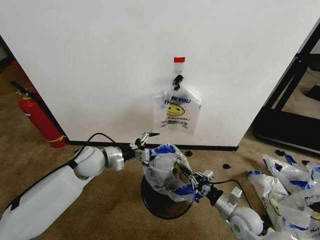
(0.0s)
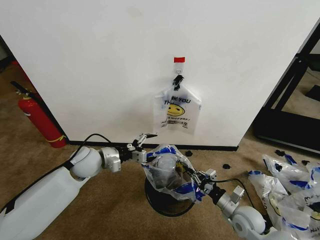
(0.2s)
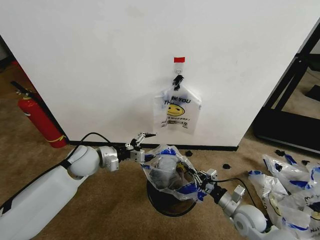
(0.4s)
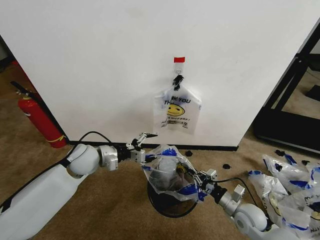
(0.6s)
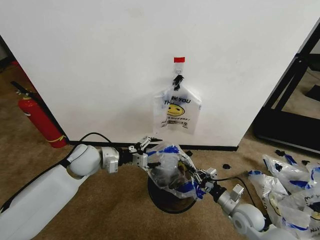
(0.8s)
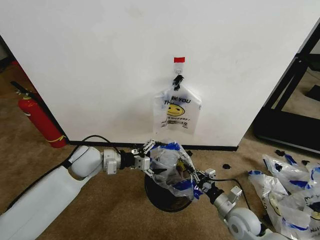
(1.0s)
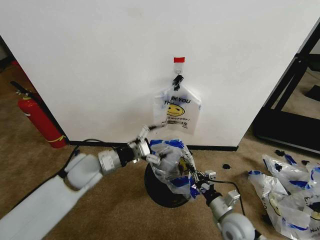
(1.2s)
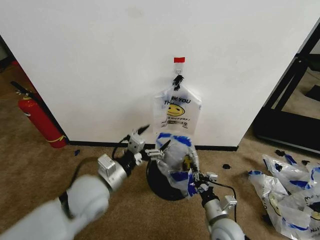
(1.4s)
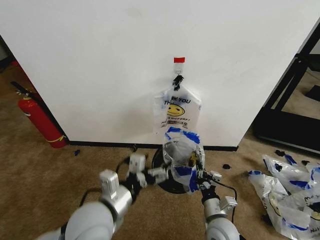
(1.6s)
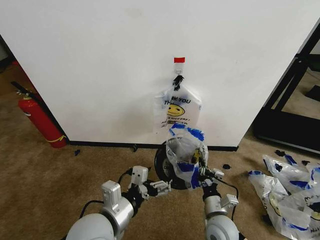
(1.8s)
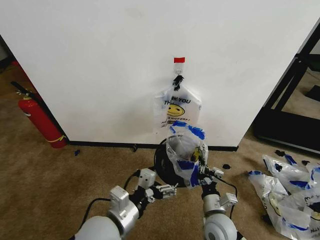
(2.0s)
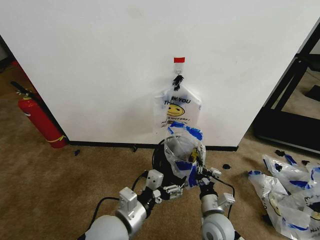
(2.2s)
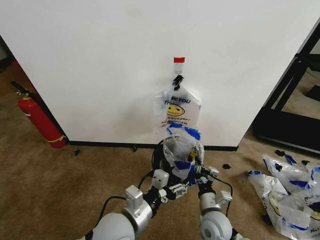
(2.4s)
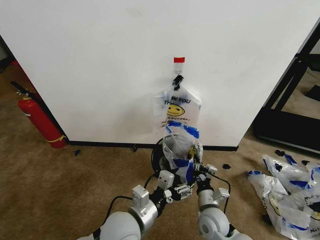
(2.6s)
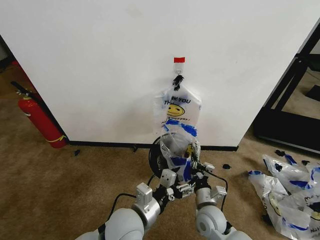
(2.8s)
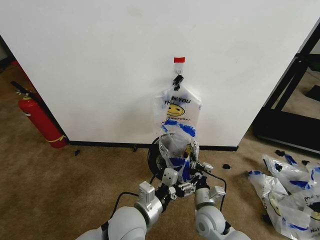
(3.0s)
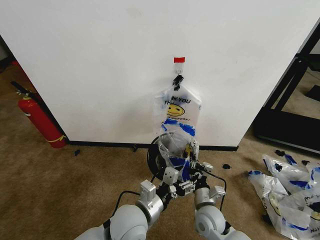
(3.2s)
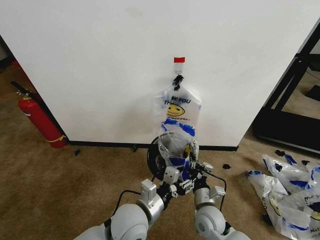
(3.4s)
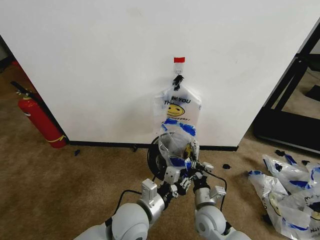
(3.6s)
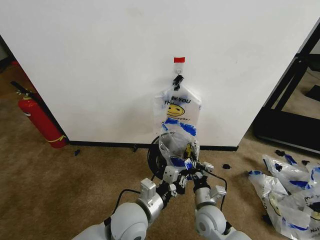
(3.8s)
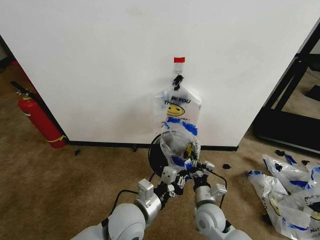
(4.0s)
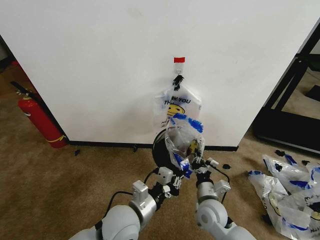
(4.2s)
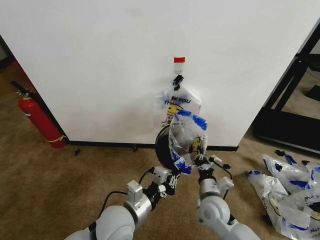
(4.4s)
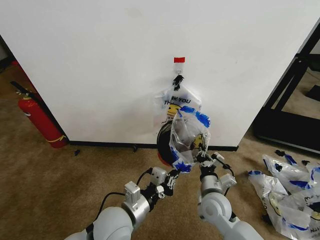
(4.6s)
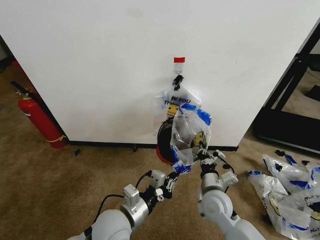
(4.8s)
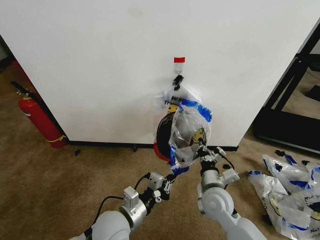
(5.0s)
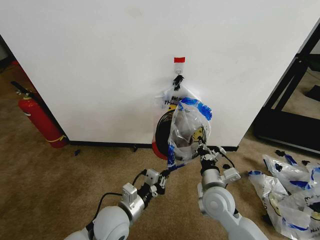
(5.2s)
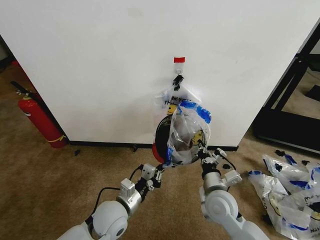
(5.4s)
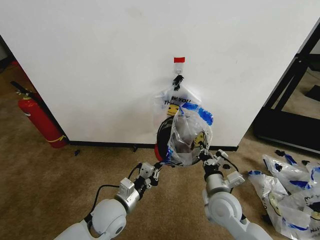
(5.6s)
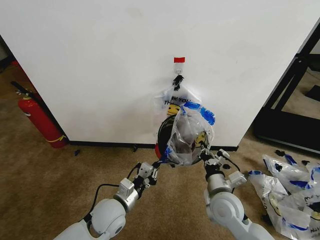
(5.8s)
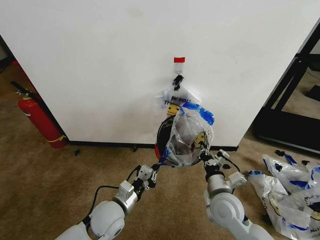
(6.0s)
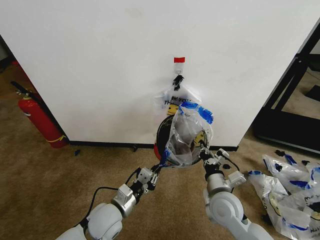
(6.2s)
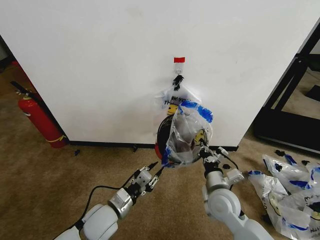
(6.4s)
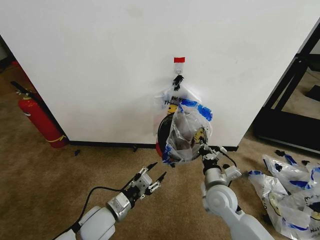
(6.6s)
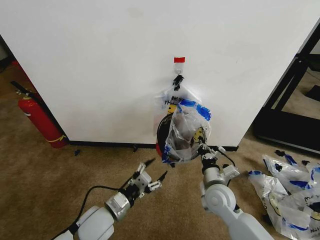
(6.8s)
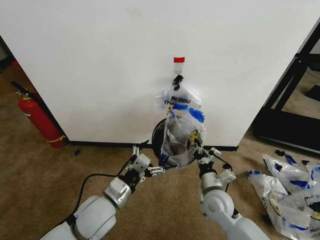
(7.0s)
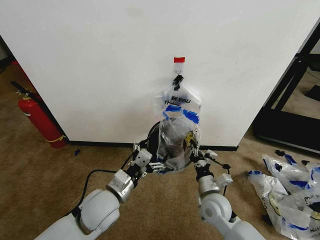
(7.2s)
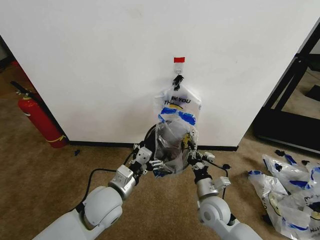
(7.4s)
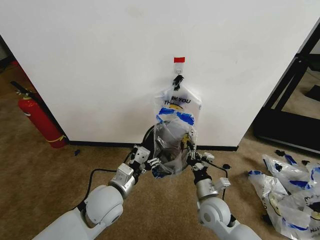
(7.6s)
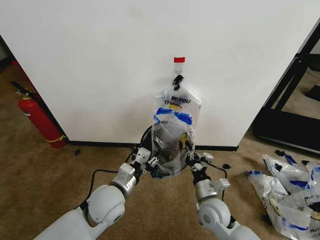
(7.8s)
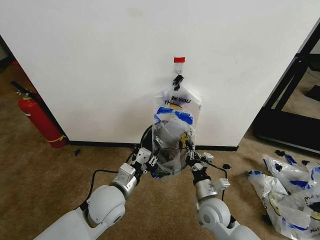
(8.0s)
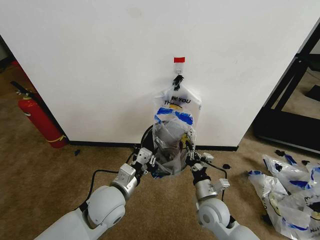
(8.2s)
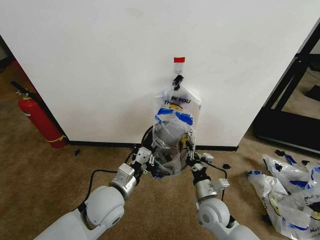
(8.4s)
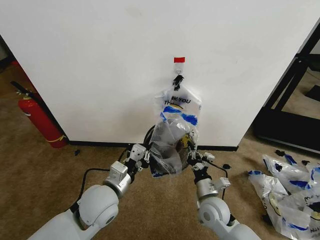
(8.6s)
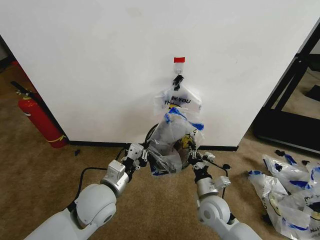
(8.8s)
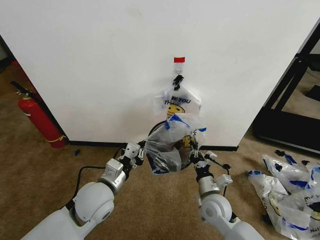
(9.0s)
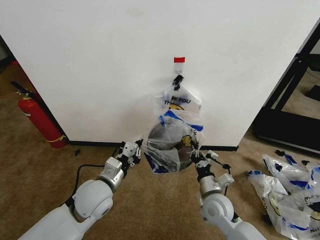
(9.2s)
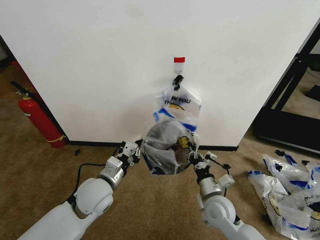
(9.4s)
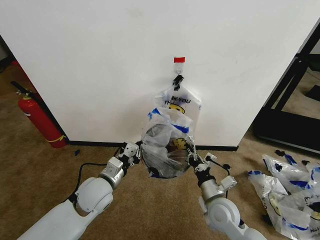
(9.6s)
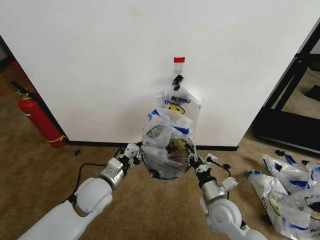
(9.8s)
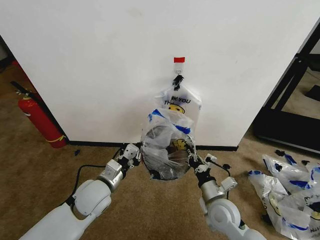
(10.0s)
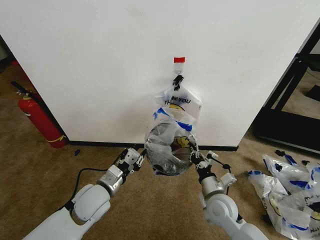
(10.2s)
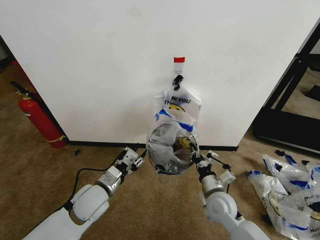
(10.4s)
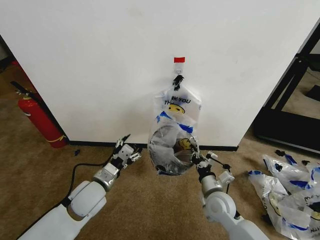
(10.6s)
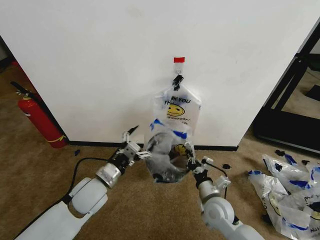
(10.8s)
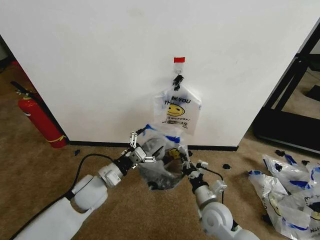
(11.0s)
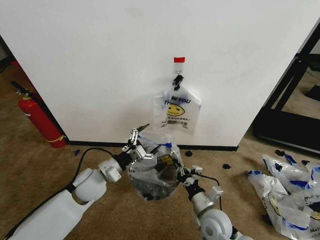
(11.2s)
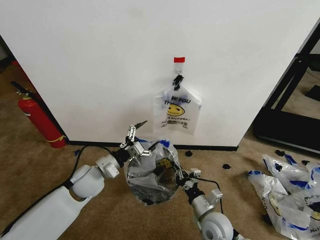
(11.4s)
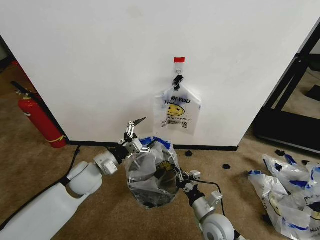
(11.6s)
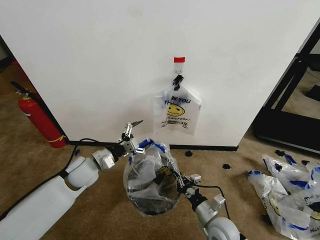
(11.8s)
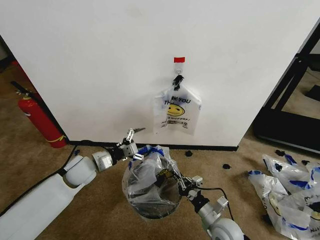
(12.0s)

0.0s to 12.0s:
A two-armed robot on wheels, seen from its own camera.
Task of the whole recording: Pick up the garbage bag from the wall and place it over the trash bin.
0.0s to 1.6s: The right gripper goes some 10 cm to the left; the left gripper heads backward and to the right, covering some 20 cm.
1.6s to 3.0s: The left gripper is displaced downward and to the right by roughly 10 cm, while the right gripper ends up about 5 cm from where it was.
3.0s to 4.4s: The left gripper closes its fingers.
4.4s to 6.0s: The right gripper shifts approximately 5 cm upward. Meanwhile the left gripper is displaced downward by roughly 5 cm.
6.0s to 7.6s: The right gripper moves downward, roughly 5 cm; the left gripper heads upward, covering some 5 cm, and opens up.
7.6s to 9.0s: The left gripper closes up.
9.0s to 10.4s: The left gripper changes place by some 5 cm, and opens its fingers.
10.4s to 12.0s: The left gripper shifts some 10 cm forward and to the left, and opens up; the right gripper heads backward and downward, covering approximately 10 cm.

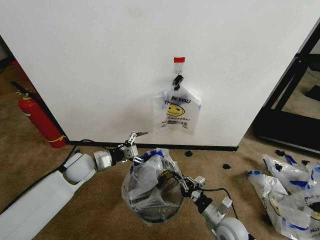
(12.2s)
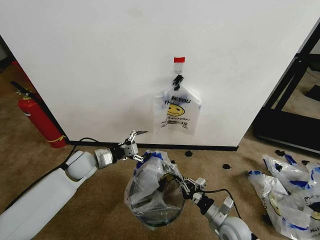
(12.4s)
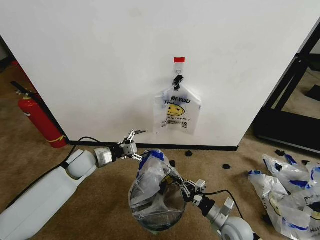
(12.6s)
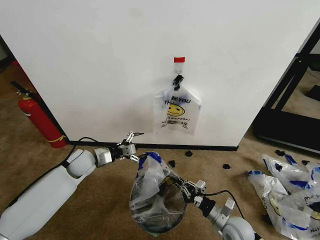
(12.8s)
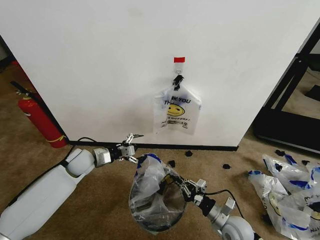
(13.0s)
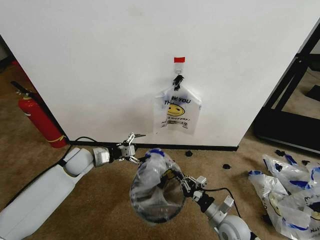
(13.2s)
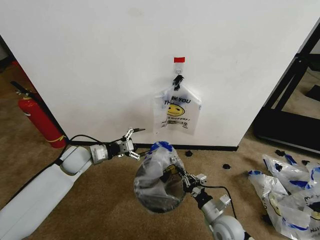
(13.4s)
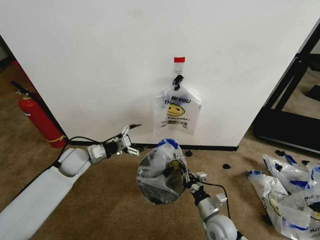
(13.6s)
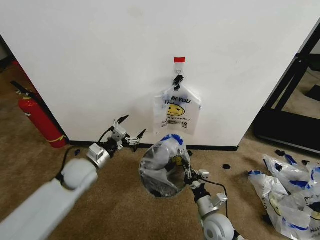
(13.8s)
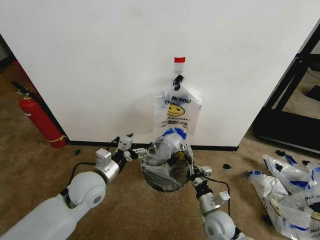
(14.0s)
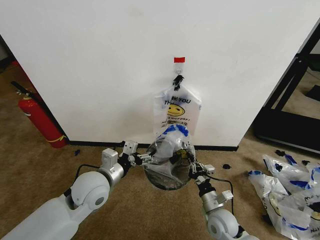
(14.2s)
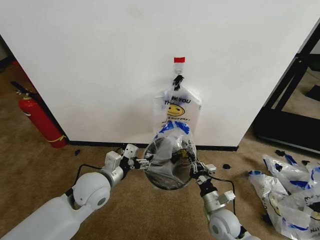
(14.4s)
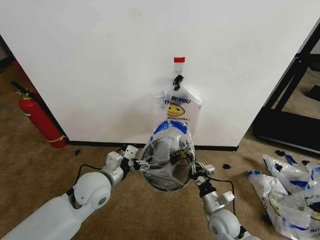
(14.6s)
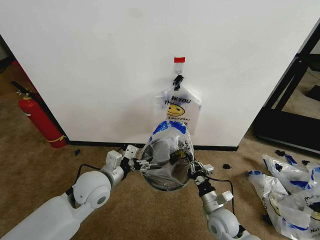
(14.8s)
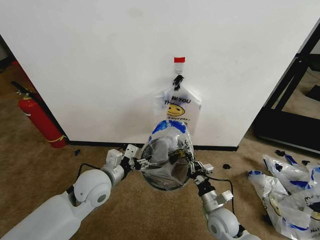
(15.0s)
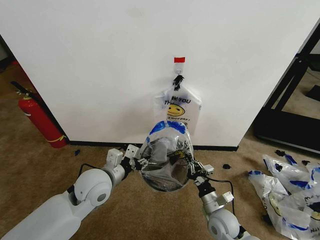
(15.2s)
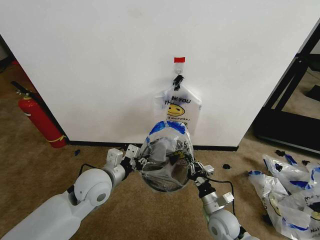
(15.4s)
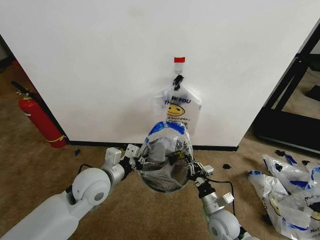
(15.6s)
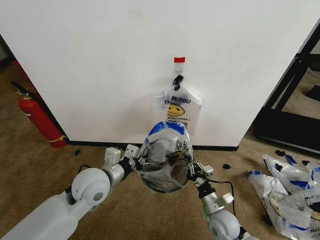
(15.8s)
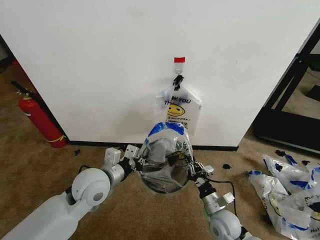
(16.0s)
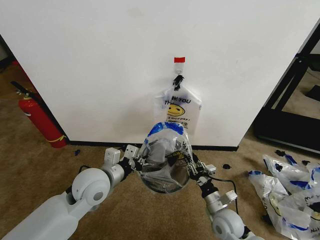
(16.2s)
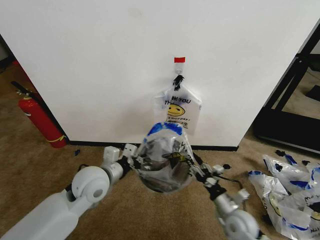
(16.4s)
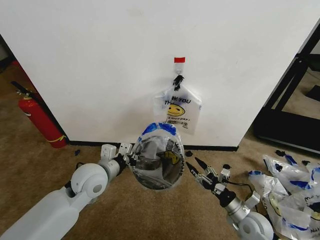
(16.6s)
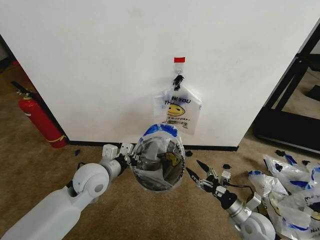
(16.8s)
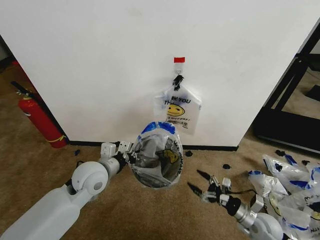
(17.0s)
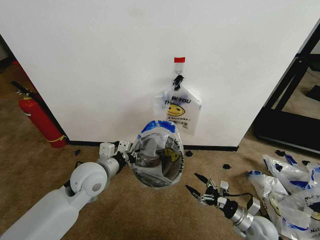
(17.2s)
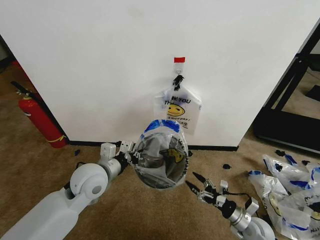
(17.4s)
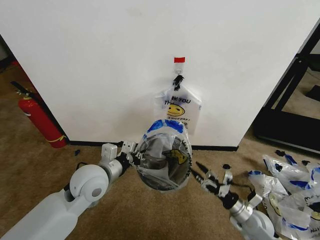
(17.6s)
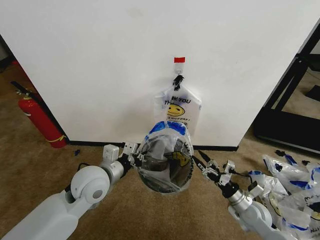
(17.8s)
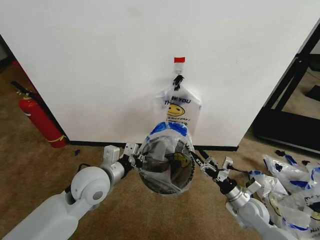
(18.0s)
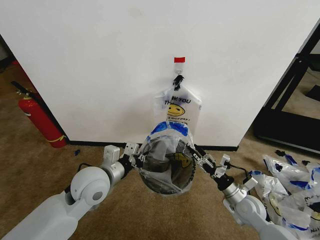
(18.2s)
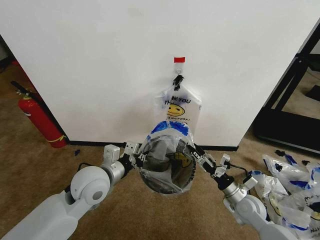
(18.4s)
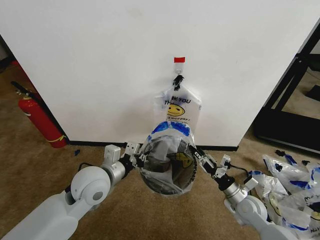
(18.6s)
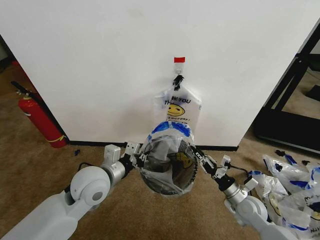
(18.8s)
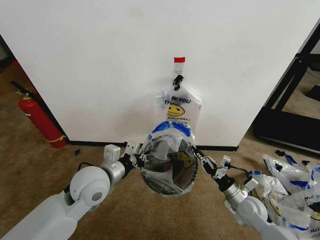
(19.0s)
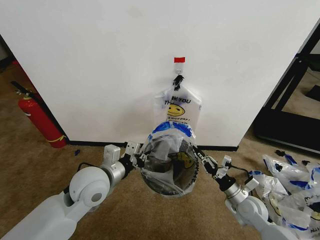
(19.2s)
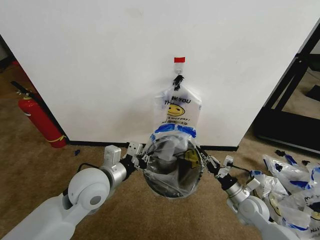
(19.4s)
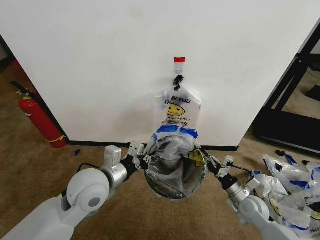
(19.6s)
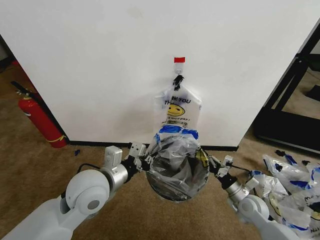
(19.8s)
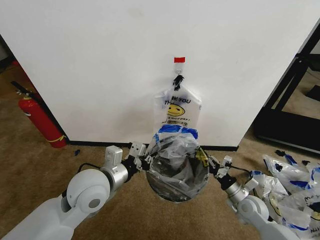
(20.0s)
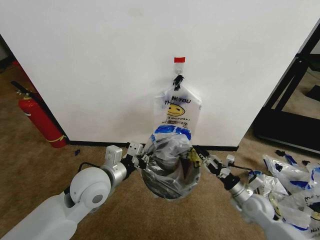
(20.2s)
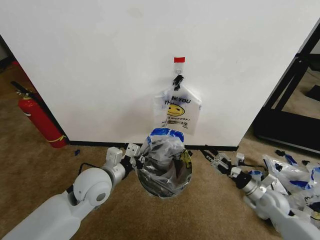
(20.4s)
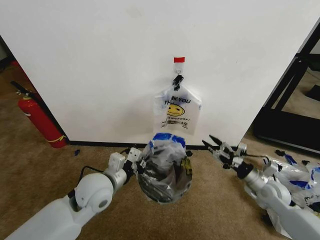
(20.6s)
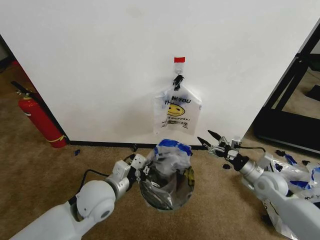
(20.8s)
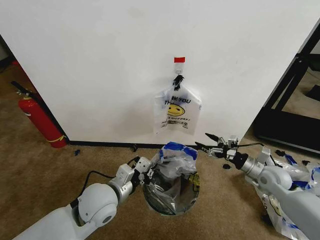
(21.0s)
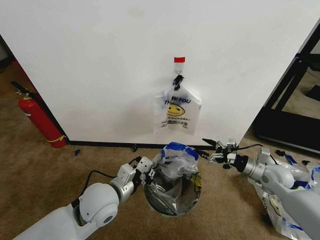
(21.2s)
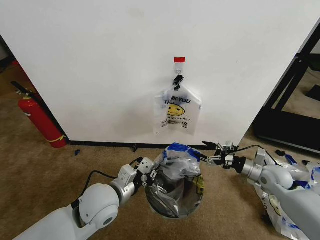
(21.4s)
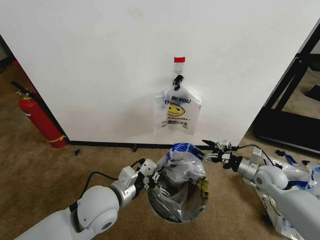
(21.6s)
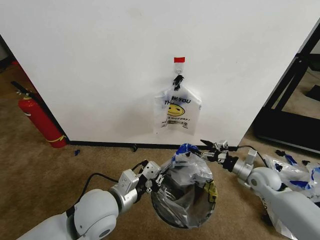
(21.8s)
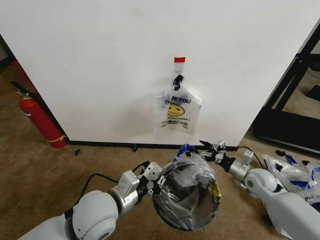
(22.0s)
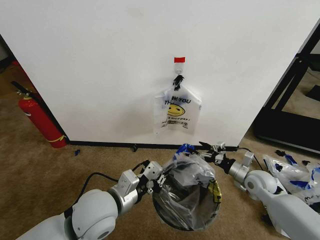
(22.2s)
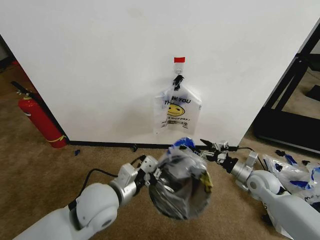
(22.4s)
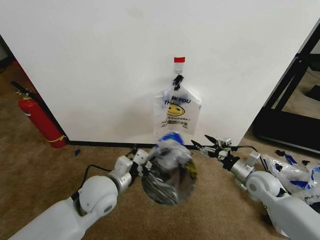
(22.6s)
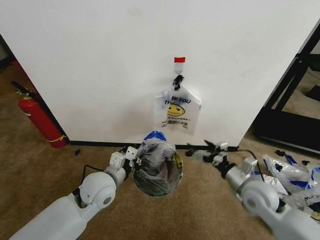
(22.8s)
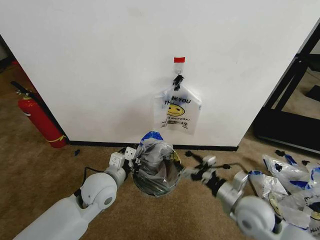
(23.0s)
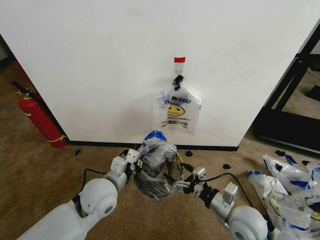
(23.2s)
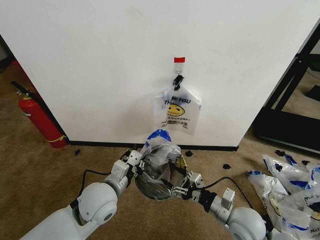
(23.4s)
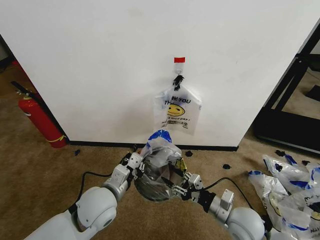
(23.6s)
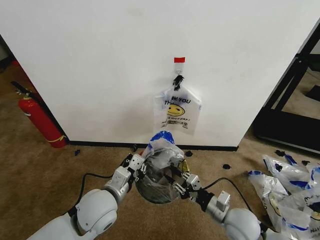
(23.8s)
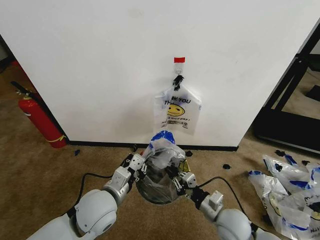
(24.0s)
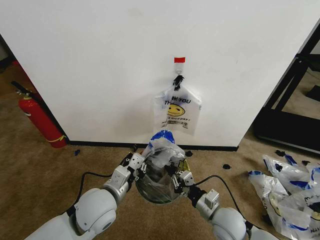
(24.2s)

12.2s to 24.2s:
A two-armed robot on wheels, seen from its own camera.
Task of the whole recording: Pick up the garbage bag from the wall and place it over the trash bin.
12.2s to 13.8s: The left gripper changes place by about 5 cm.
13.8s to 15.2s: The left gripper moves to the right, some 5 cm, and closes.
15.2s to 16.6s: The left gripper closes its fingers; the right gripper heads to the right, covering about 10 cm, and opens its fingers.
16.6s to 18.2s: The right gripper ends up some 5 cm from where it was.
18.2s to 19.8s: The right gripper closes.
19.8s to 21.2s: The left gripper heads downward, covering about 5 cm. The right gripper is displaced upward, to the right and forward by roughly 15 cm, and opens.
21.2s to 22.6s: The right gripper is displaced to the left by about 5 cm.
22.6s to 24.2s: The right gripper travels to the left and backward by approximately 20 cm, and closes its fingers.
